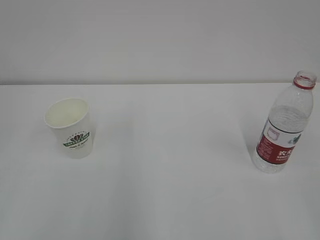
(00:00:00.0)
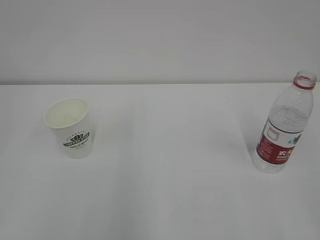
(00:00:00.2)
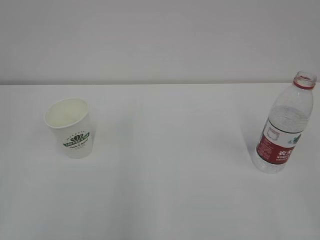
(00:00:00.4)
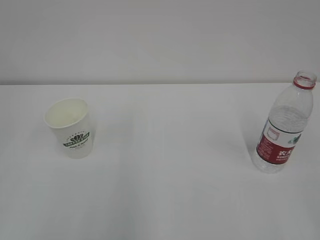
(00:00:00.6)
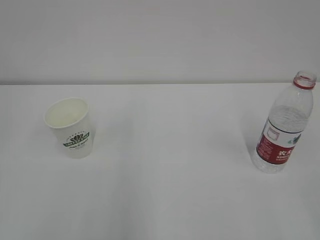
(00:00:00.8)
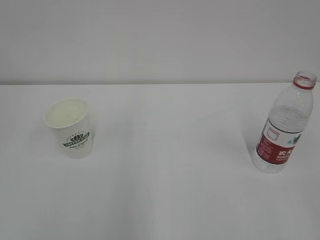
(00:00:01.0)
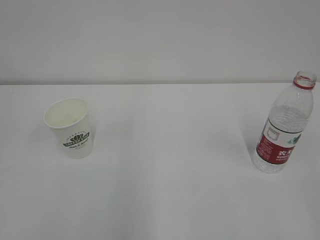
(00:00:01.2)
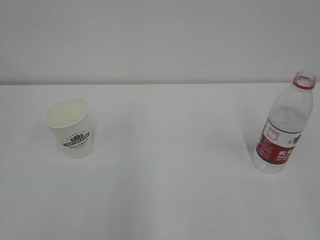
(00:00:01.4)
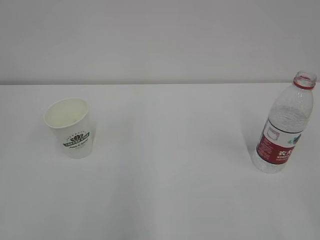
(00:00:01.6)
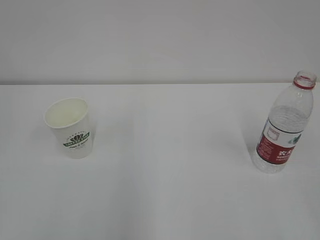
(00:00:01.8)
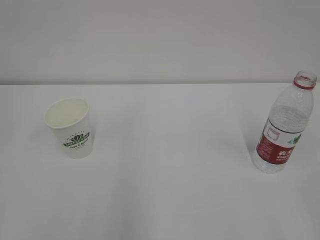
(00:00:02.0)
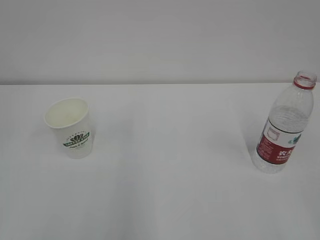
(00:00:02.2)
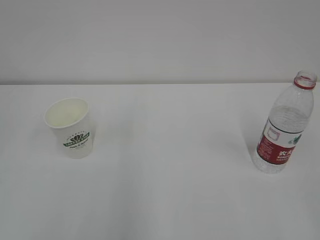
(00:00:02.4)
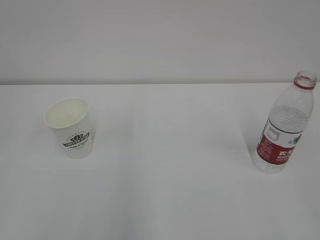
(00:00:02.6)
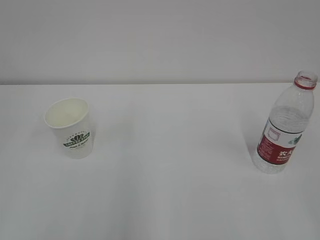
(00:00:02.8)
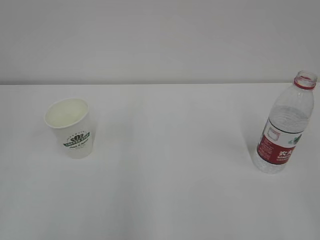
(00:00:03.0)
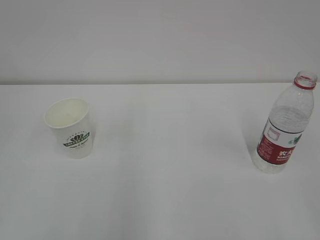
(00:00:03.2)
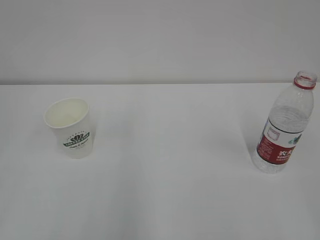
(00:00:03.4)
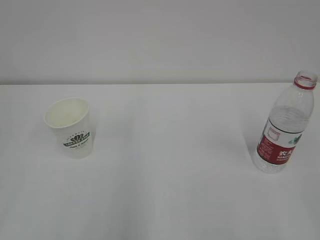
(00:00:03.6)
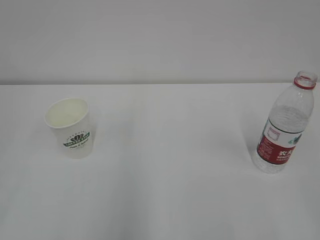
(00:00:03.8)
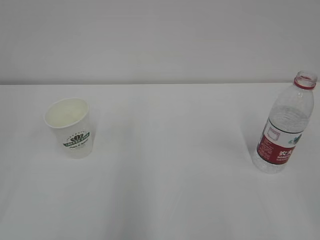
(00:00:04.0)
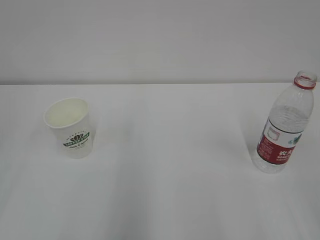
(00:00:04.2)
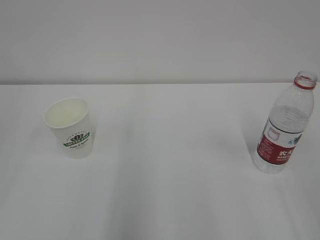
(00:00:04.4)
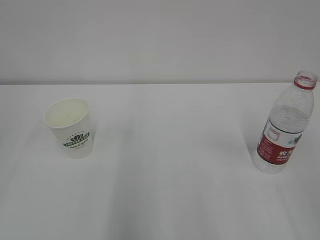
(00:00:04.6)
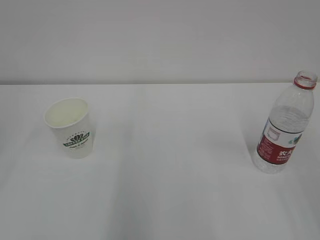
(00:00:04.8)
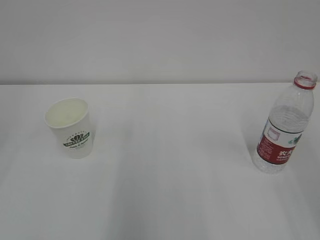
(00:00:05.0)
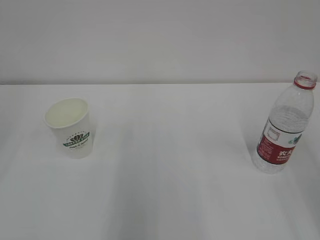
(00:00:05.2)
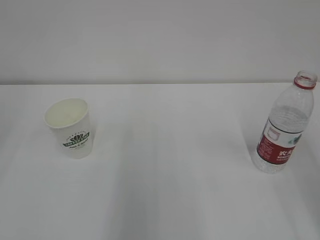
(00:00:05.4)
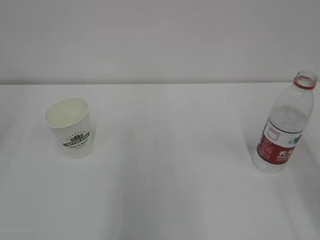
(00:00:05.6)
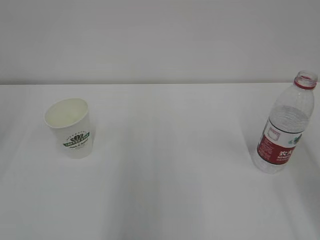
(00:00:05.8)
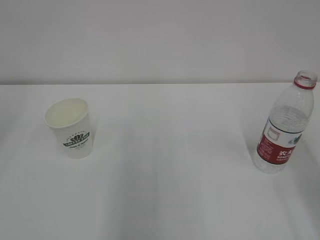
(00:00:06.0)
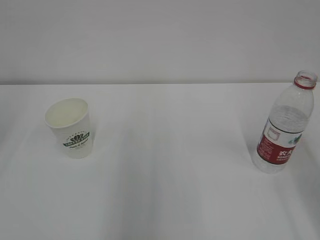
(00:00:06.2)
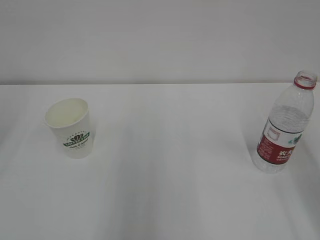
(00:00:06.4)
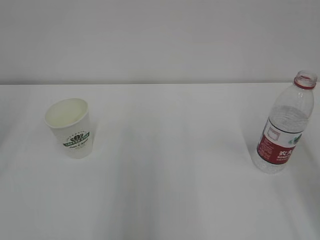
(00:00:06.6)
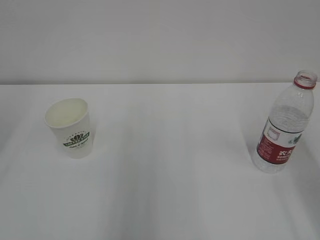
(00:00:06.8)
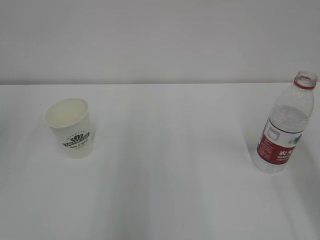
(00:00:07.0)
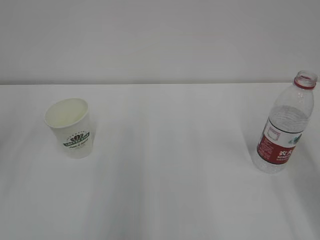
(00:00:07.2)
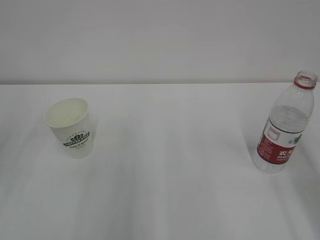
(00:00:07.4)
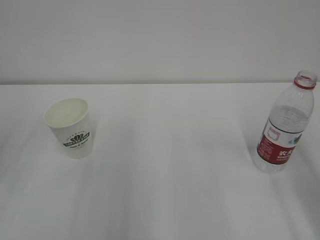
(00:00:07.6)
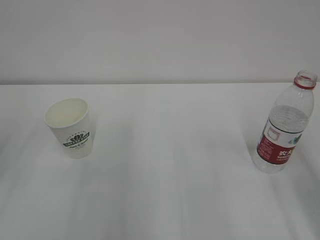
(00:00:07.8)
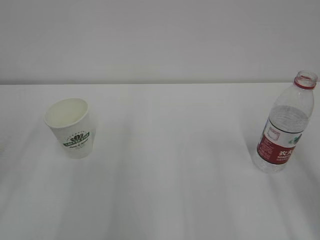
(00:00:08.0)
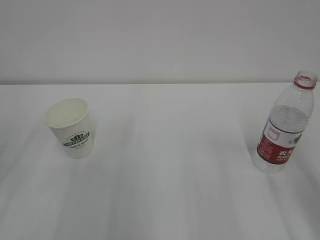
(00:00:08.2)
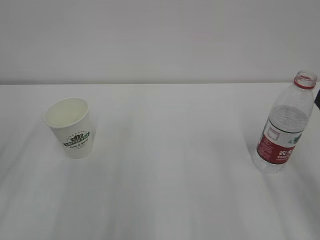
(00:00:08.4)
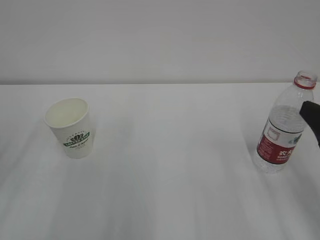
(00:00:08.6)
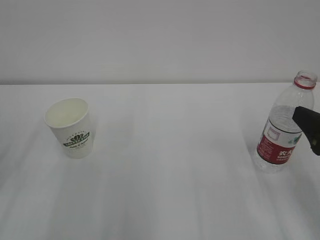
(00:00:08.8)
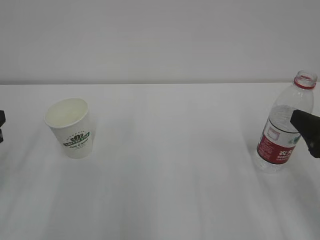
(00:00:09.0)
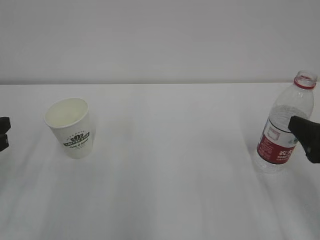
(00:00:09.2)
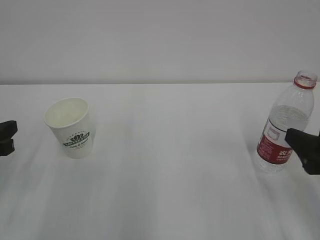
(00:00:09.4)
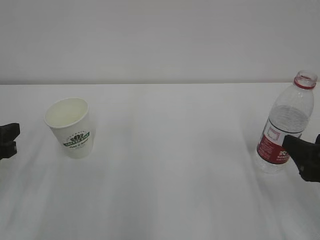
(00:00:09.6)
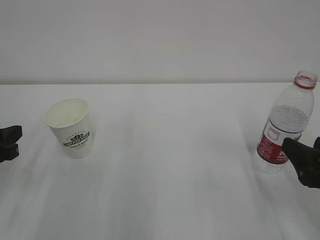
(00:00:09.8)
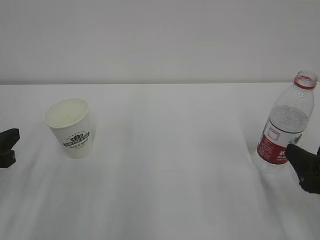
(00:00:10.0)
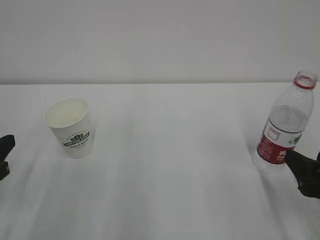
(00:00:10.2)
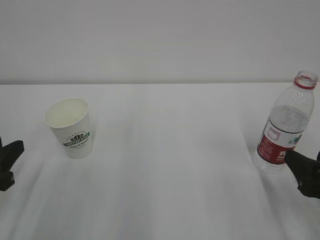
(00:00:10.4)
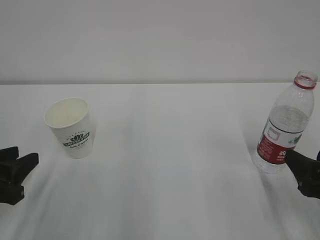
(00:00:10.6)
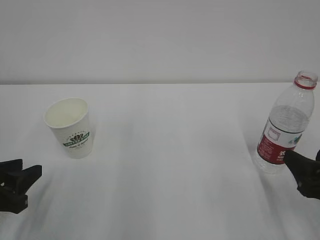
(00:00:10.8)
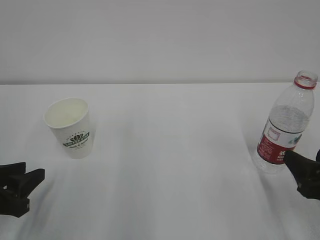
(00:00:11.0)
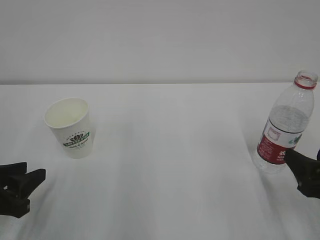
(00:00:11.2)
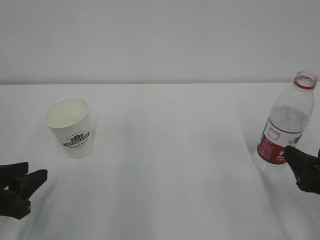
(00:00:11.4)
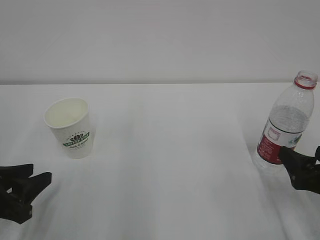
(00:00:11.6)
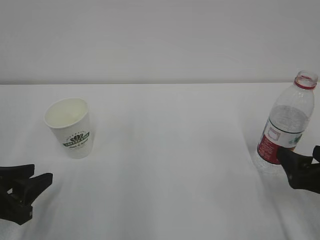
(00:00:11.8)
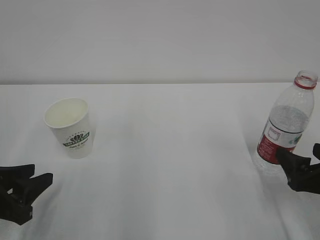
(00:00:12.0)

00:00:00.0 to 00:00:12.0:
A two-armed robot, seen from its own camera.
00:00:01.6 to 00:00:03.0: Neither gripper changes place.
00:00:07.6 to 00:00:09.0: The right gripper goes approximately 10 cm downward.
00:00:09.0 to 00:00:10.4: The left gripper ends up about 5 cm from where it was. Meanwhile the right gripper moves downward, roughly 5 cm.
00:00:10.4 to 00:00:12.0: The right gripper opens up.

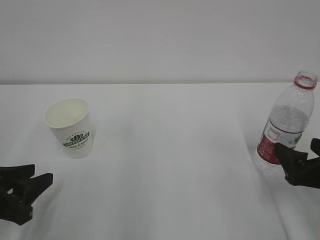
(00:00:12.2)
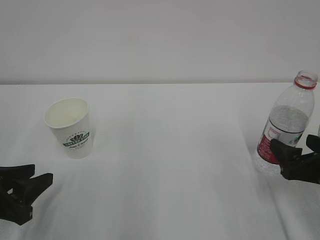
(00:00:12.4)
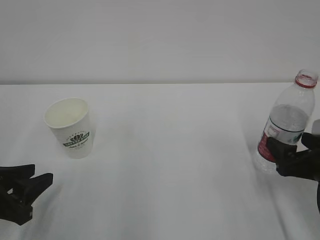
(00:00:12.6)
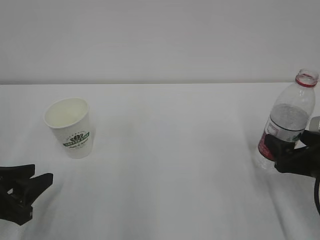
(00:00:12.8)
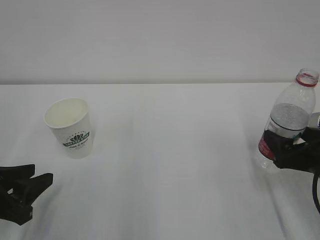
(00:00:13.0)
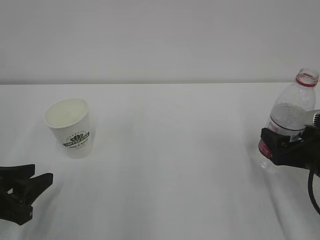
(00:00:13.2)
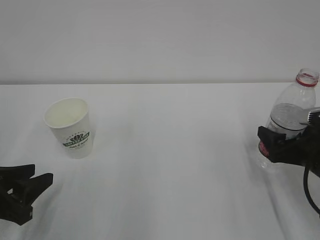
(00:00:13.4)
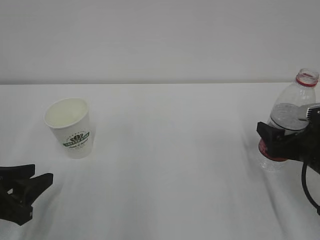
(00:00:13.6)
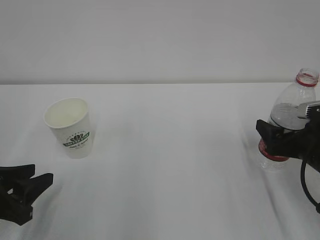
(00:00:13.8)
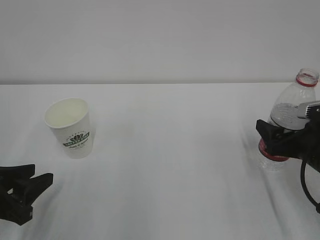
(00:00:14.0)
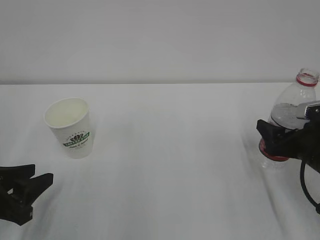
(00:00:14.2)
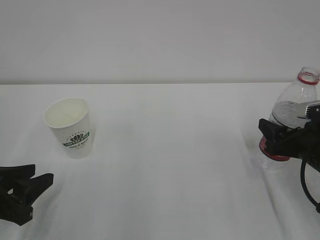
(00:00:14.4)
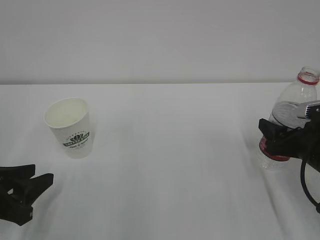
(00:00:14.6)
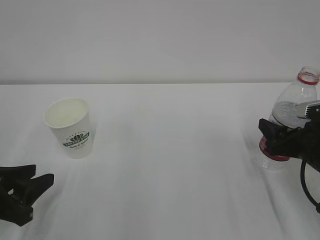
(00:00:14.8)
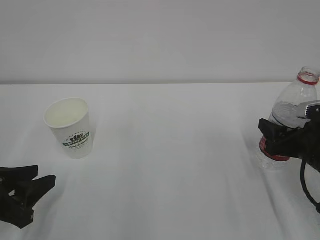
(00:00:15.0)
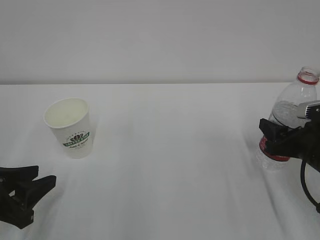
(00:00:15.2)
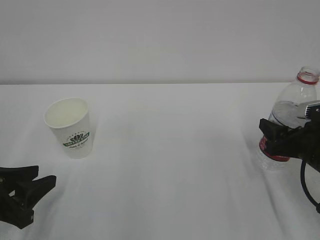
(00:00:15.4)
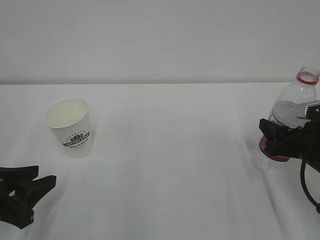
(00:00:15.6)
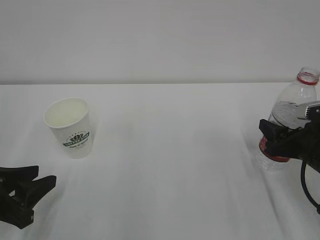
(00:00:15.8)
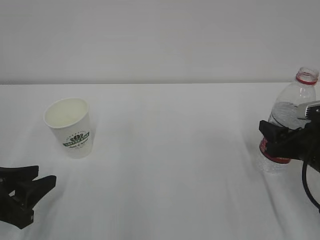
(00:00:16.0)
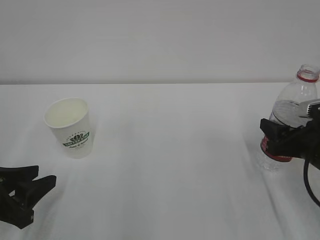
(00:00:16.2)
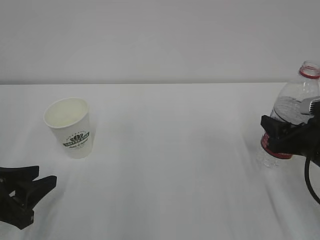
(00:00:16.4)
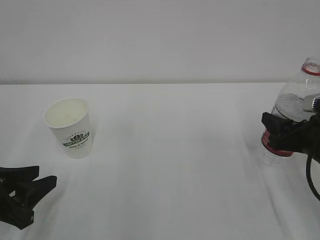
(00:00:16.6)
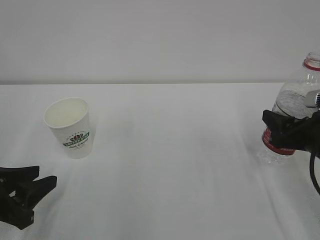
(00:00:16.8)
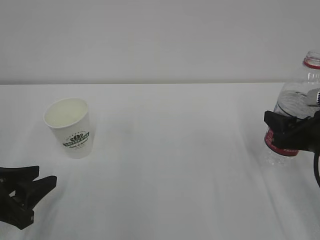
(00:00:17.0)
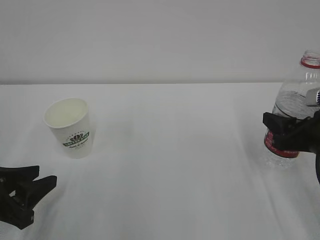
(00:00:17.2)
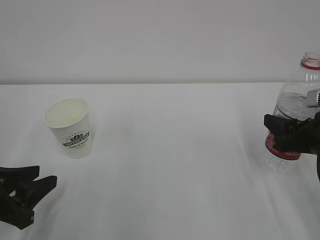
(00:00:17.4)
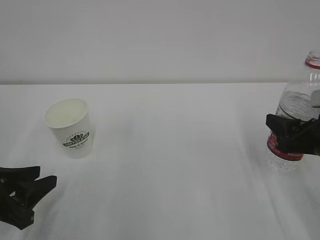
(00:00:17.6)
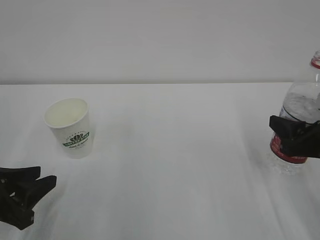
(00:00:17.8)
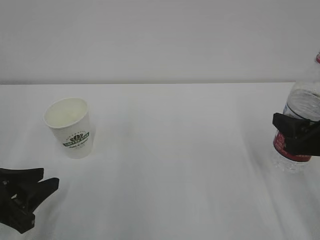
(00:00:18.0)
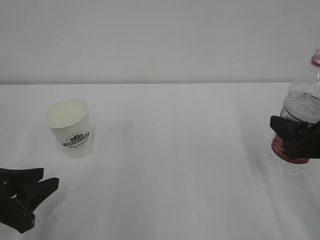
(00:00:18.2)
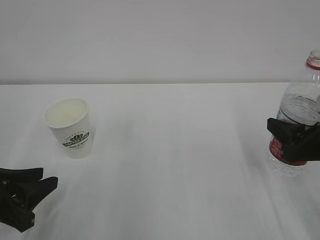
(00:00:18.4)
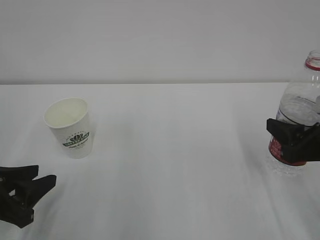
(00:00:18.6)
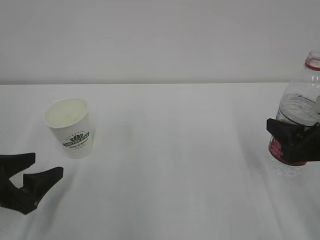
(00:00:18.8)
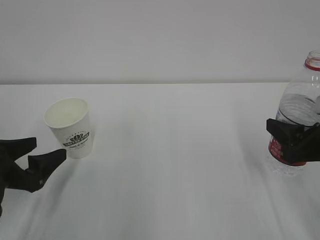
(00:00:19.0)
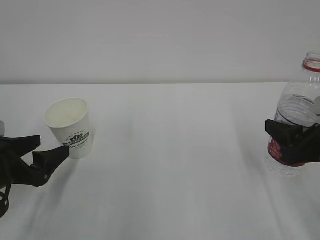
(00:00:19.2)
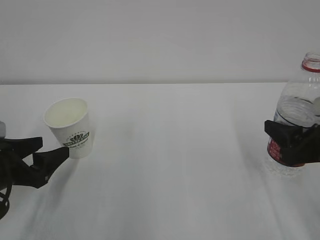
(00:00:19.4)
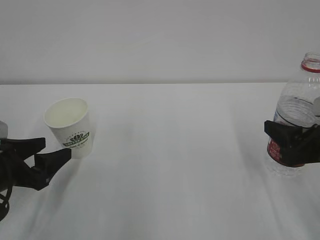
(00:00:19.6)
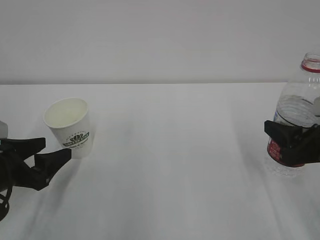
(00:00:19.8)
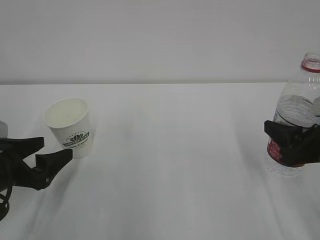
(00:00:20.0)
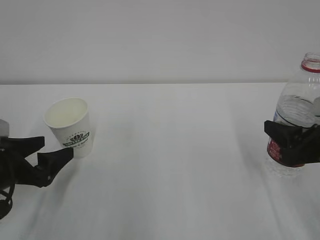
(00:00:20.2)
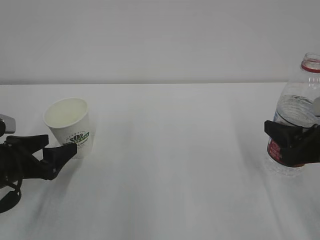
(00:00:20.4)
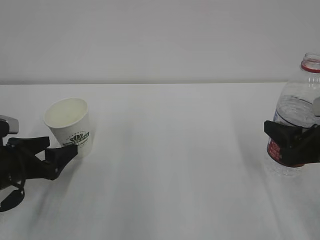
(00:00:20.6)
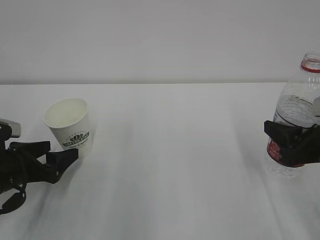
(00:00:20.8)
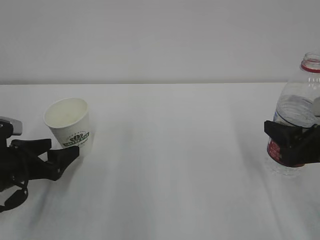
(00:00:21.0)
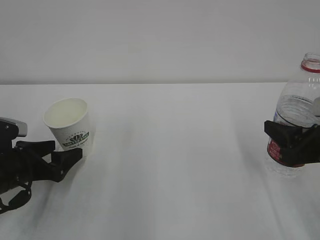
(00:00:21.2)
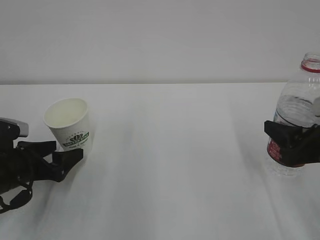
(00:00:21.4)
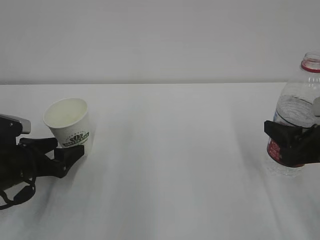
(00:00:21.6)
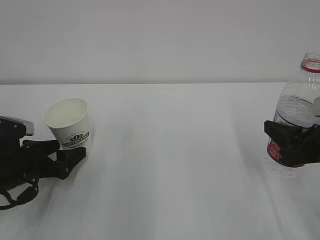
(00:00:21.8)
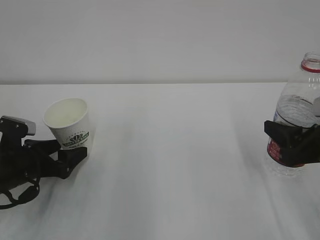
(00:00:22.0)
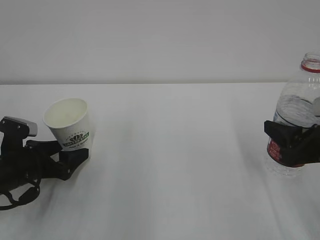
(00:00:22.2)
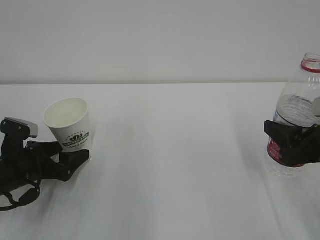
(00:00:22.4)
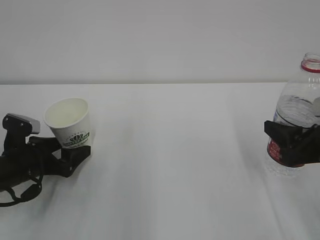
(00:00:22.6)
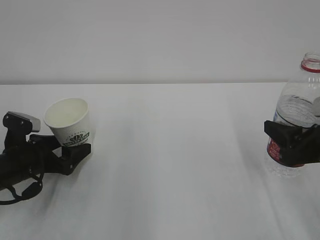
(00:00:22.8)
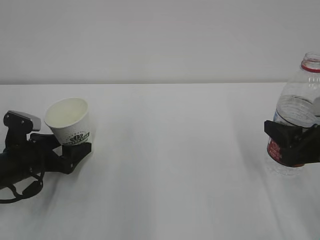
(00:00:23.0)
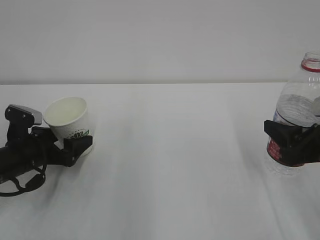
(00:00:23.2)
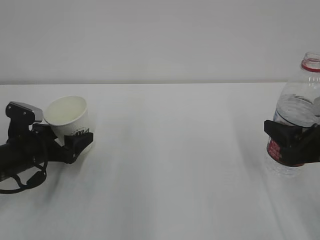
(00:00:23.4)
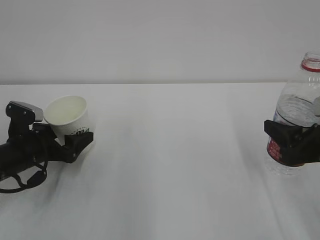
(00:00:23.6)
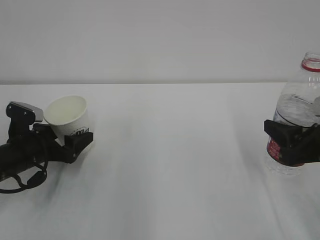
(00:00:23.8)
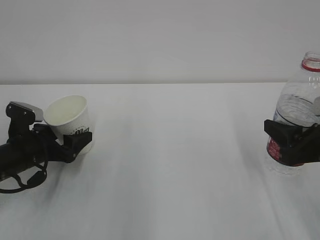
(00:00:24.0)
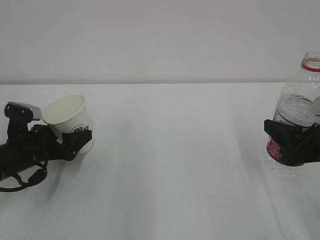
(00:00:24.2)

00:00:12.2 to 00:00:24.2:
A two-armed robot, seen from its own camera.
00:00:12.2 to 00:00:13.8: The right gripper shifts roughly 5 cm forward.
00:00:13.8 to 00:00:15.2: The right gripper closes its fingers.
00:00:15.2 to 00:00:16.6: There are only small adjustments of the grippers.
00:00:16.6 to 00:00:18.2: The right gripper shifts by about 5 cm.
00:00:18.2 to 00:00:19.8: The left gripper heads forward, covering about 5 cm, and opens.
00:00:19.8 to 00:00:21.2: The left gripper moves some 5 cm.
00:00:21.2 to 00:00:24.2: The grippers make only small movements.
